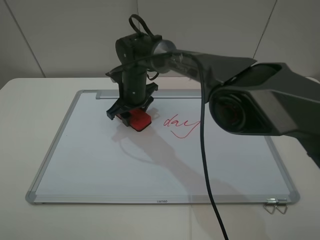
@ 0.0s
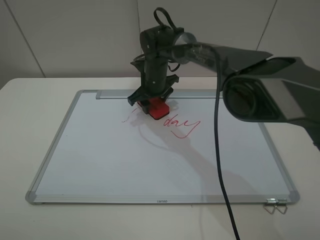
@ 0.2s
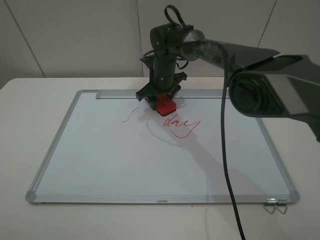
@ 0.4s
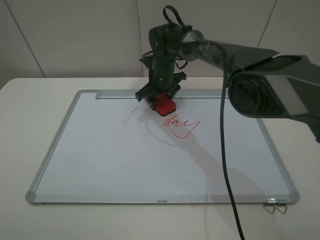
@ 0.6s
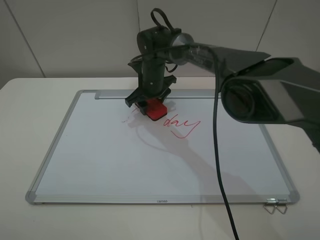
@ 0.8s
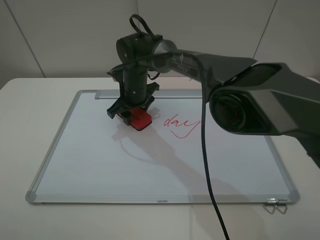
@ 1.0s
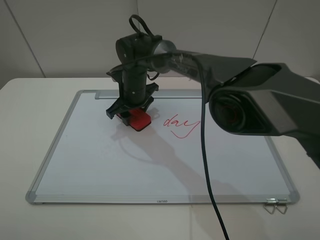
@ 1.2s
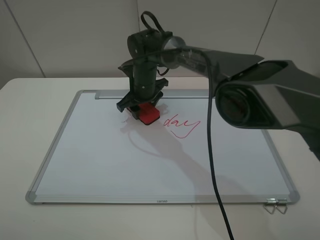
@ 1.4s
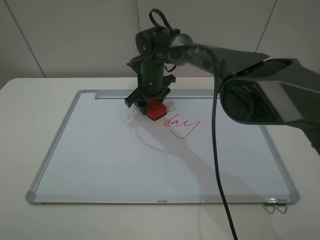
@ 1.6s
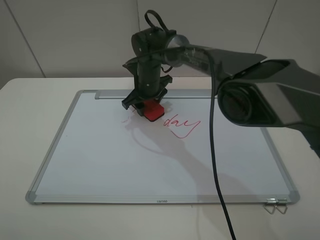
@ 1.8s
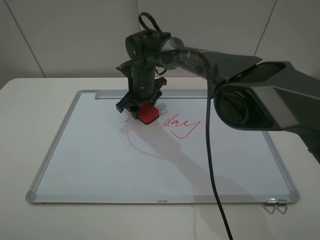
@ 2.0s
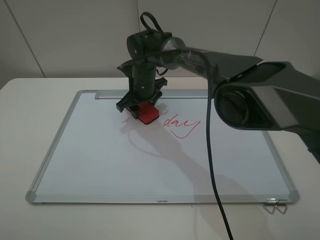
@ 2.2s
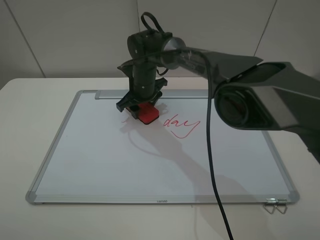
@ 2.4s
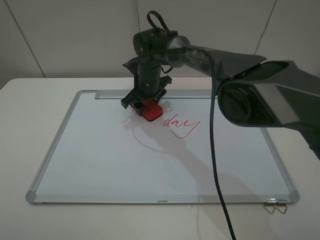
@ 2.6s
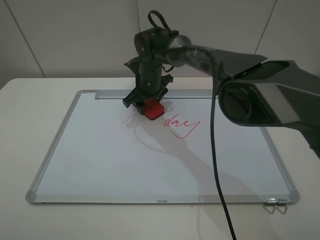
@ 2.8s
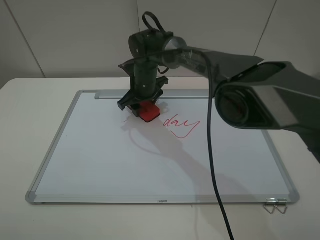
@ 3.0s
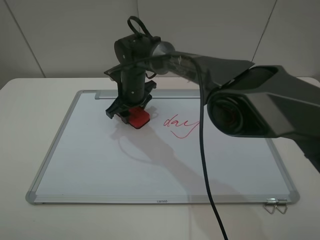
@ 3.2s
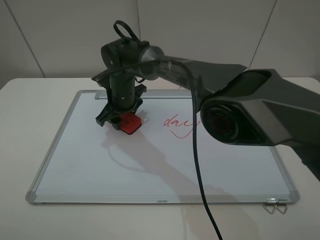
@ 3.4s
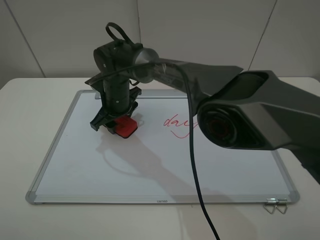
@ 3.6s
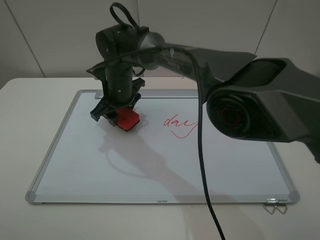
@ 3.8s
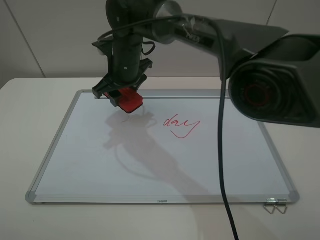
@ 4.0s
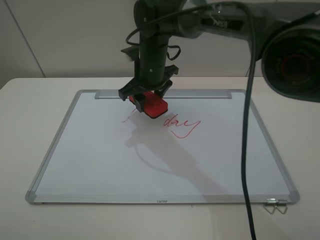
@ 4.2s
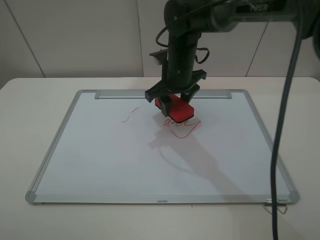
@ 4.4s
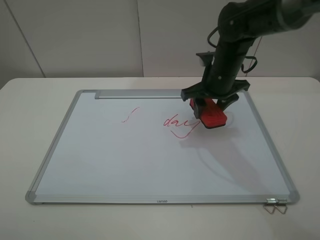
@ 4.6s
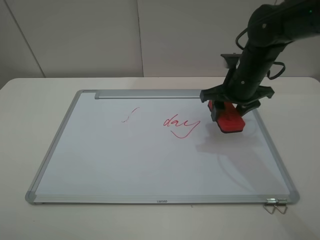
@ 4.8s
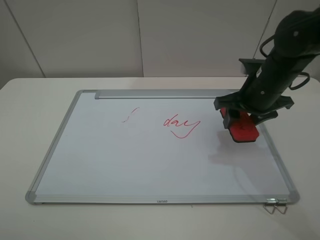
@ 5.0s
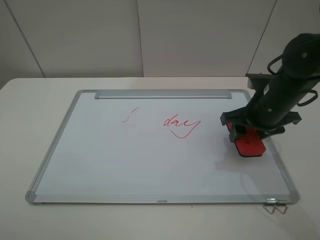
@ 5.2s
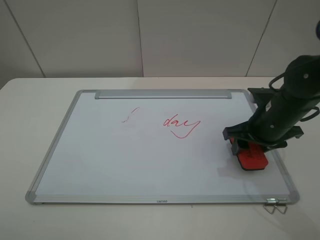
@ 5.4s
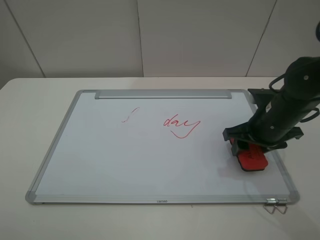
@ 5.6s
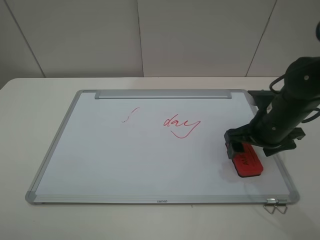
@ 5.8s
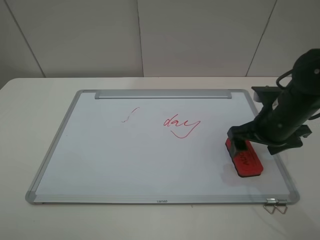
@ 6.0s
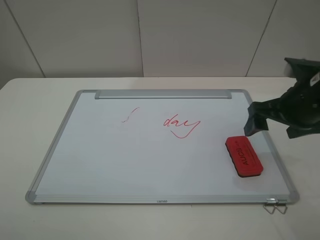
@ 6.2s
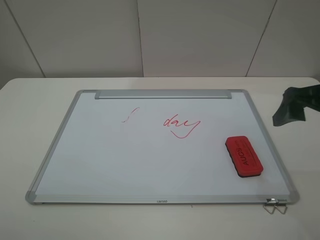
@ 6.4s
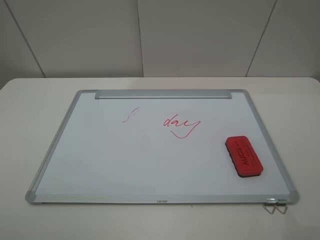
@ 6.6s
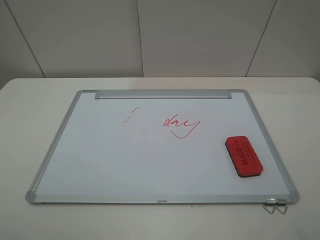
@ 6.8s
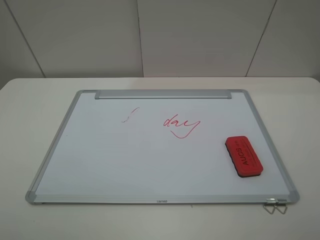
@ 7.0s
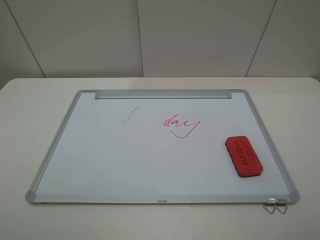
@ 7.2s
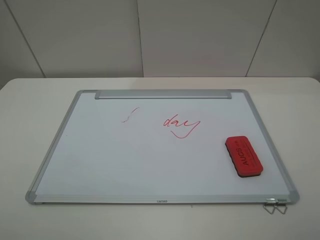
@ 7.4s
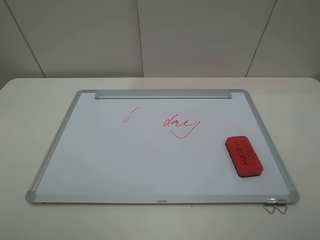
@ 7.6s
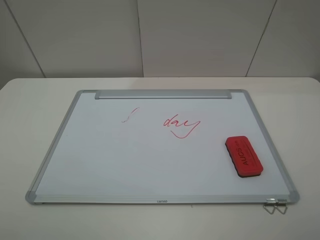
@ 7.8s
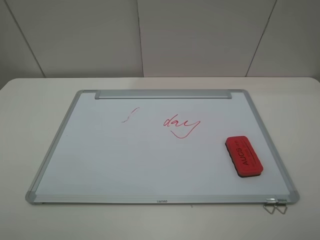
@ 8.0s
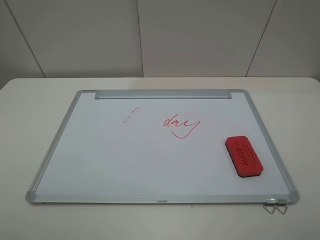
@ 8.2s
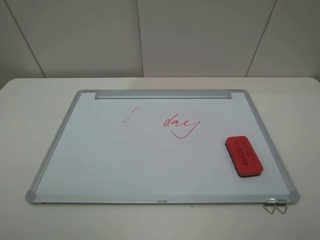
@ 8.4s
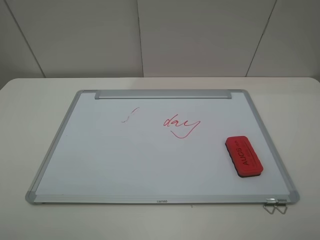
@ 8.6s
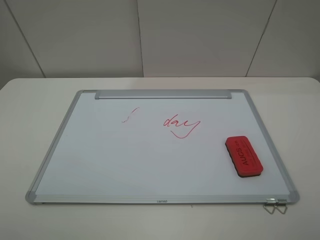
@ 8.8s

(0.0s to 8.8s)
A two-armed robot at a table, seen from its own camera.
Step, 0.0s - 3.8s: Grasp the eraser and wipe the blackboard with the right gripper.
Step, 4.0s - 6.0s: Place the eraser with the right gripper.
0.0s - 1.4s: The right gripper travels to the right and back again, approximately 5 cm each way.
1.4s - 3.0s: The grippers make only small movements.
3.0s - 4.4s: The right gripper moves to the right and upward, roughly 15 cm.
4.4s - 5.8s: The right gripper goes about 20 cm to the right and backward, and opens up.
5.8s - 7.4s: The right gripper moves backward and upward, some 30 cm.
7.4s - 8.8s: The two grippers keep their place.
